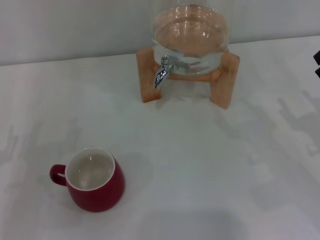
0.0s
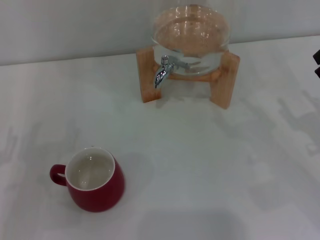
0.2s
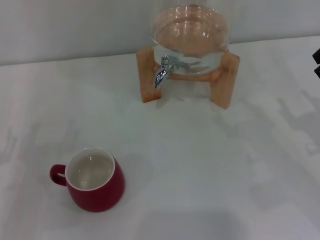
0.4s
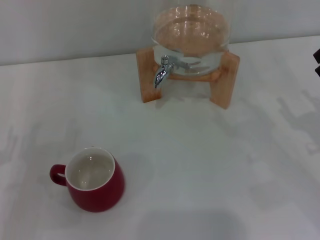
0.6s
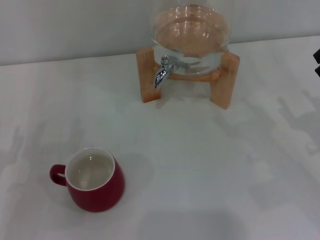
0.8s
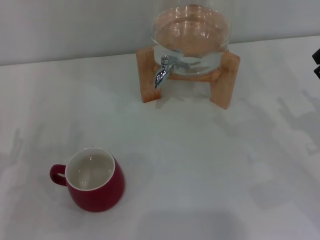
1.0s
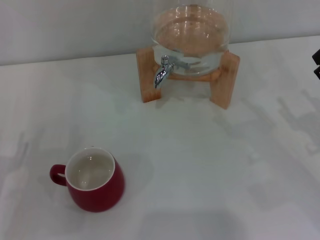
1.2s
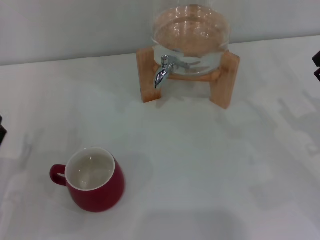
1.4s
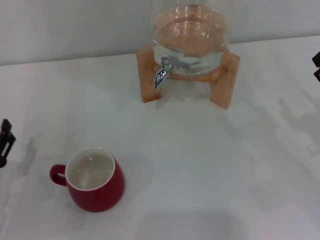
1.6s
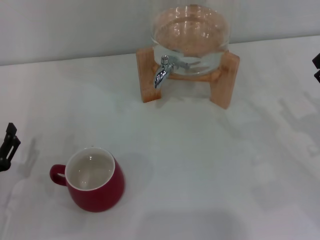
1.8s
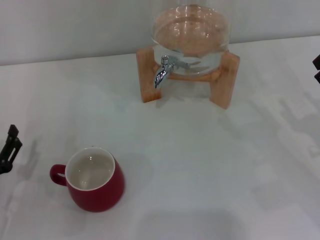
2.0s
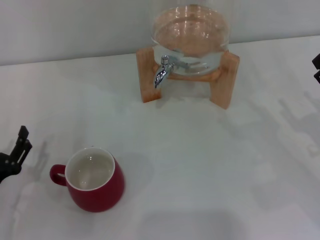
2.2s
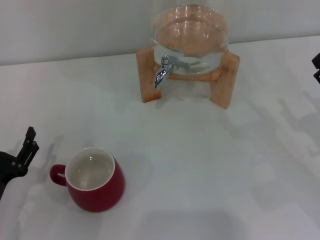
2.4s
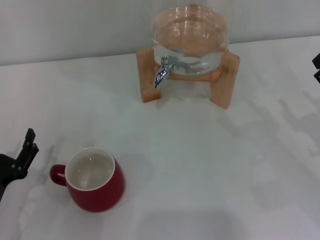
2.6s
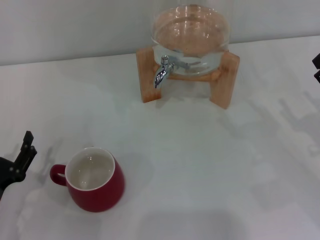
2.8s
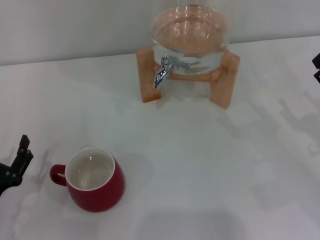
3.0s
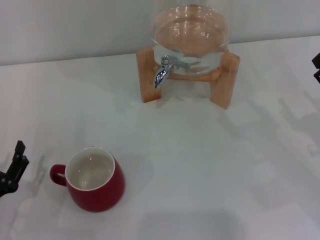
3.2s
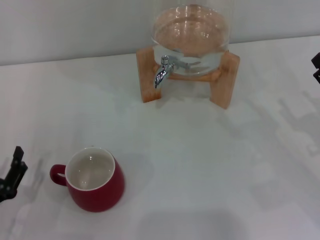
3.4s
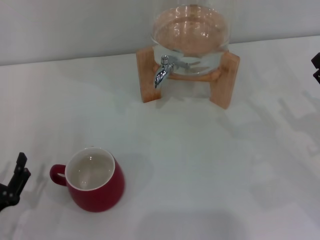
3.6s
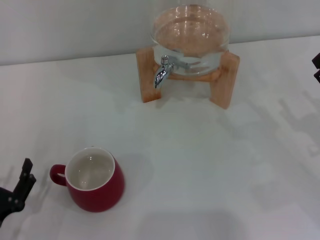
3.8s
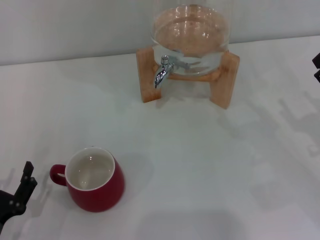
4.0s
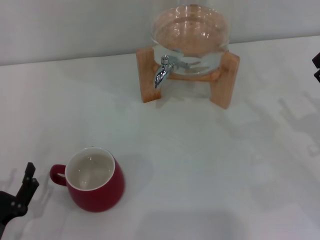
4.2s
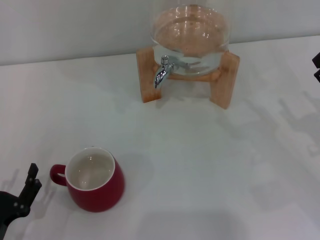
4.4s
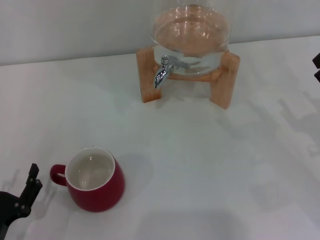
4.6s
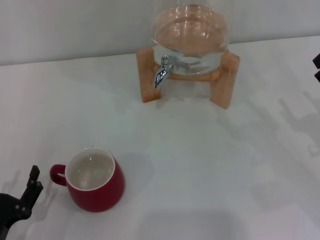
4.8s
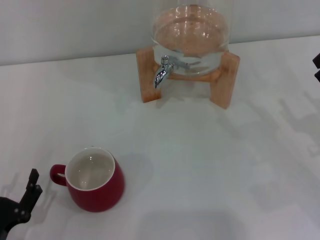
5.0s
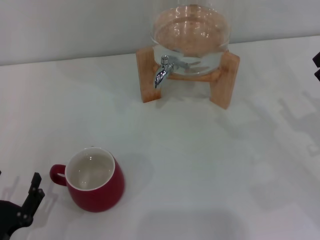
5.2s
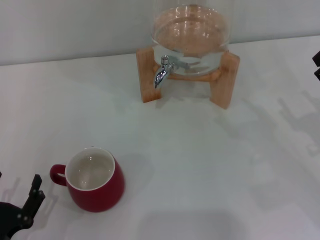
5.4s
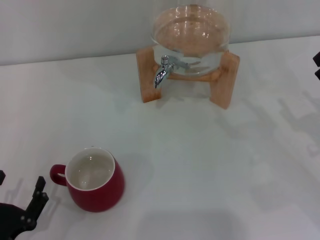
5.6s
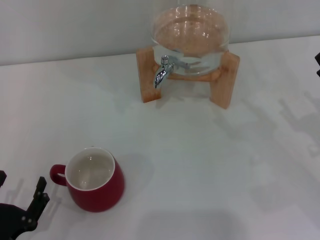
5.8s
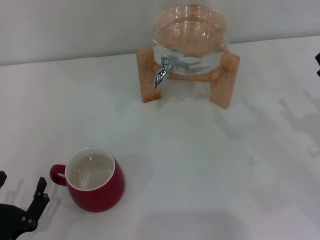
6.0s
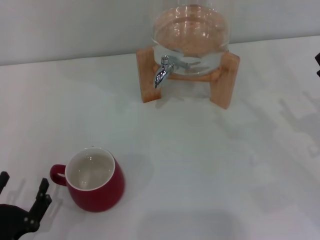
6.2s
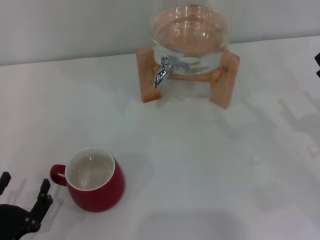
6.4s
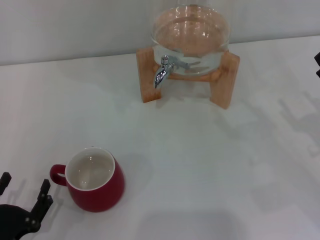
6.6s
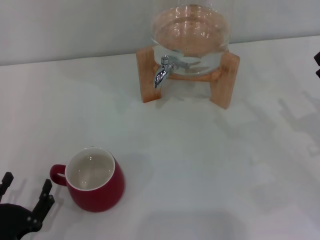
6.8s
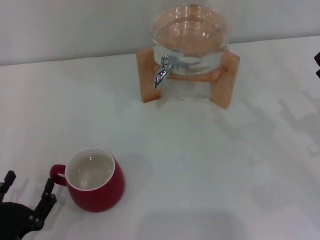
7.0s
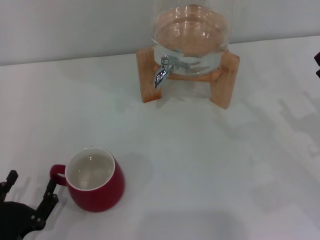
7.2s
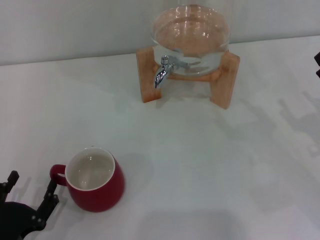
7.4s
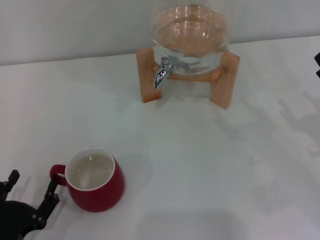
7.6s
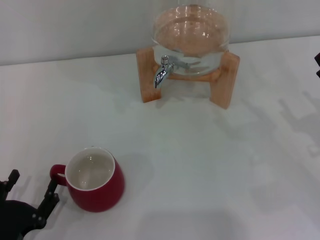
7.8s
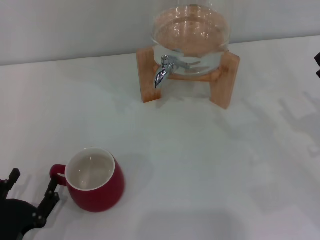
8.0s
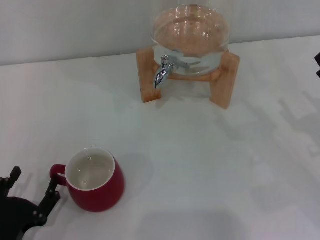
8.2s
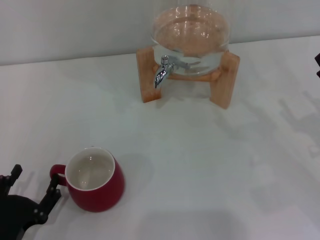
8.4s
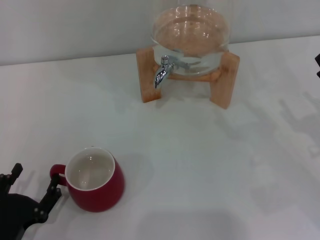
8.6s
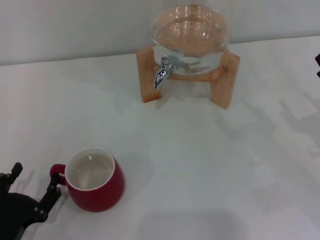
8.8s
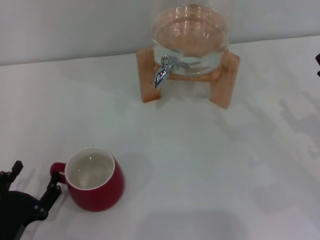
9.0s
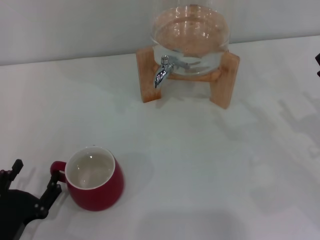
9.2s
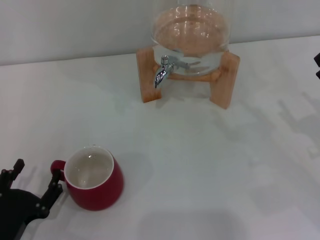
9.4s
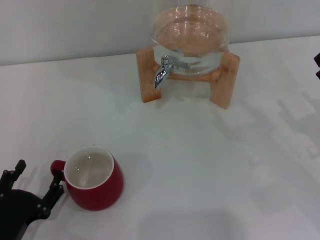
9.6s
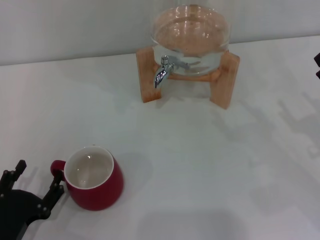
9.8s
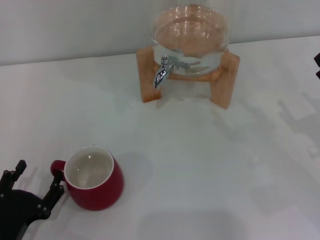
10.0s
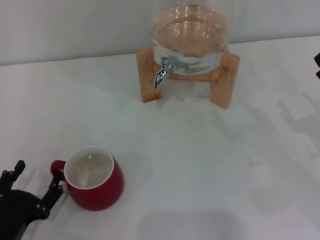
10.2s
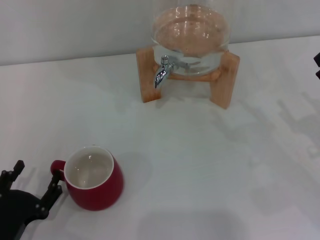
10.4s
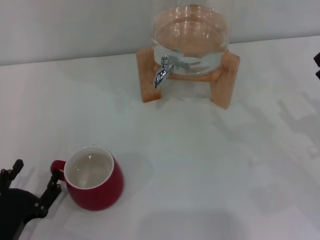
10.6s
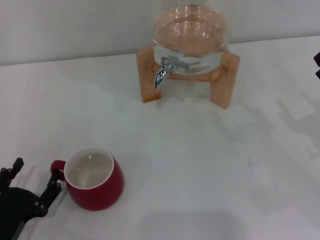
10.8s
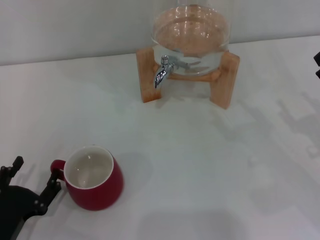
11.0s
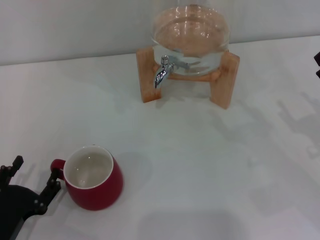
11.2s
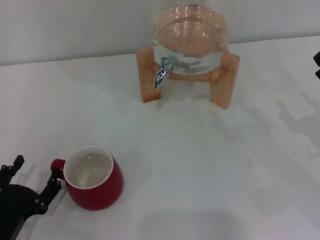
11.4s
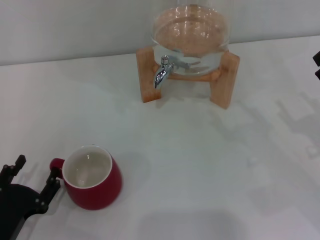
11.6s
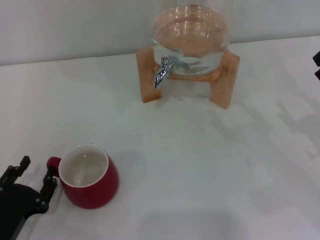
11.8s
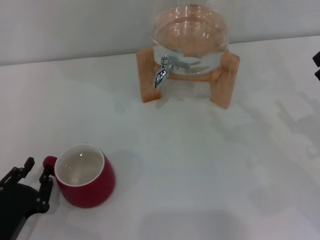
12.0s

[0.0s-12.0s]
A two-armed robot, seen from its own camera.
Task of the whole recording: the left gripper pick up the red cup and place it horizontally under the faucet, the right gripper turn on the faucet to fill the cup, and then turn off the faucet.
1.6s to 3.0s: There are only small adjustments of the grippers.
3.0s to 4.4s: The grippers stay close to where they were, moving slightly.
4.4s to 6.0s: There are only small adjustments of the grippers.
6.0s to 7.6s: Both grippers stay put.
7.6s to 9.0s: The grippers make only small movements.
9.0s to 10.4s: Neither gripper changes place.
10.4s to 12.0s: Both grippers stay about where they are.

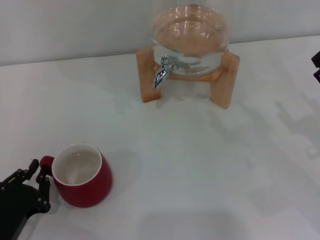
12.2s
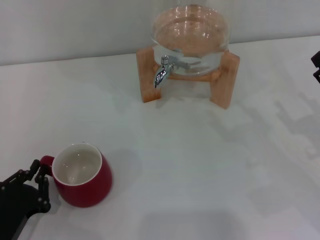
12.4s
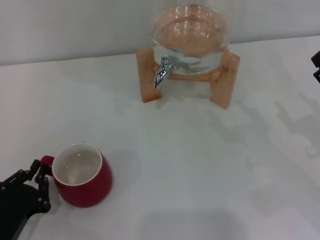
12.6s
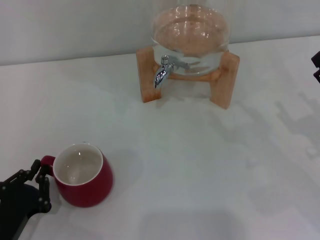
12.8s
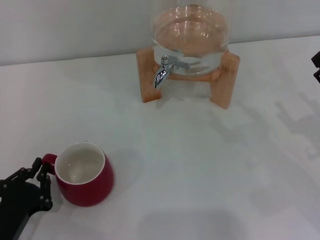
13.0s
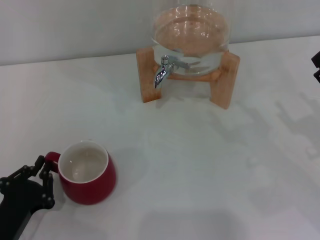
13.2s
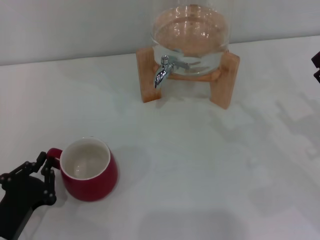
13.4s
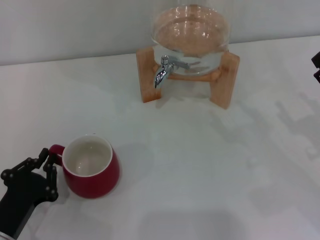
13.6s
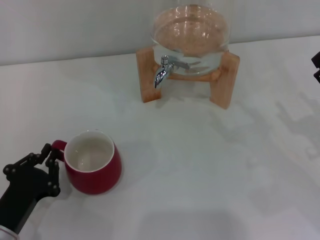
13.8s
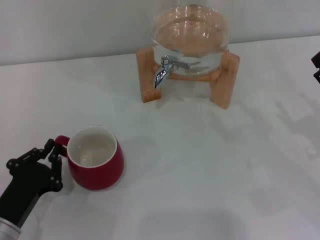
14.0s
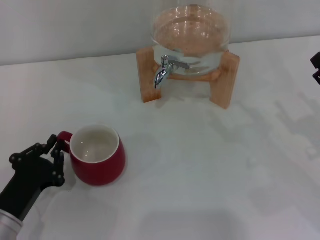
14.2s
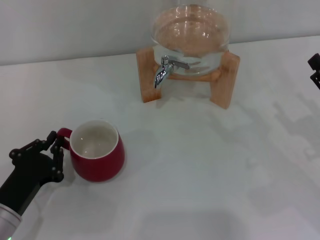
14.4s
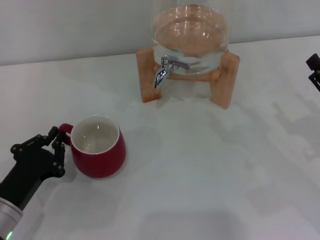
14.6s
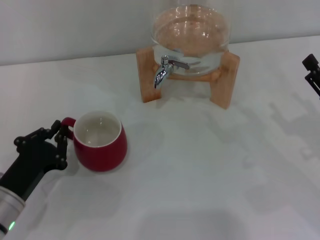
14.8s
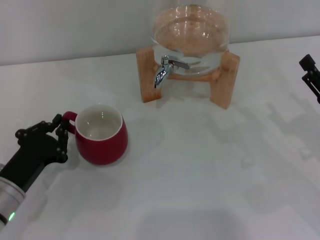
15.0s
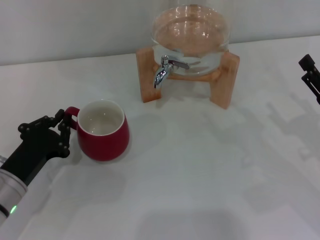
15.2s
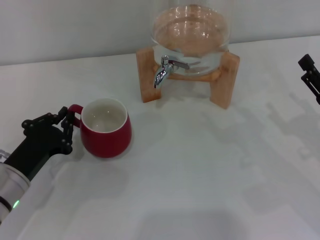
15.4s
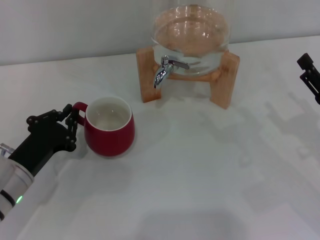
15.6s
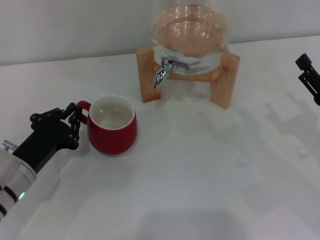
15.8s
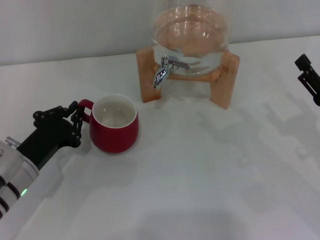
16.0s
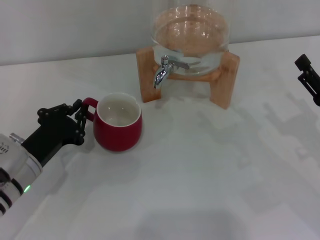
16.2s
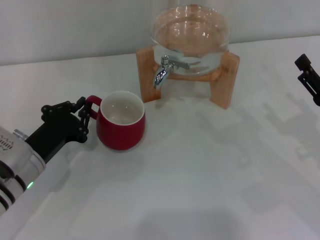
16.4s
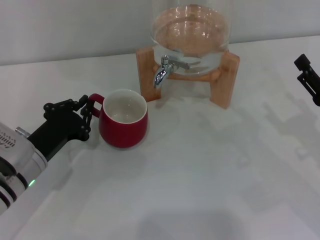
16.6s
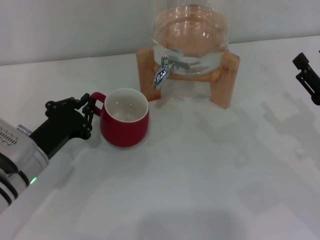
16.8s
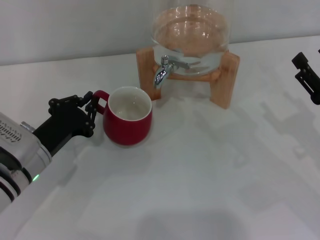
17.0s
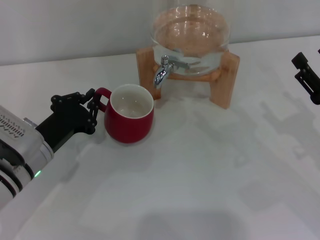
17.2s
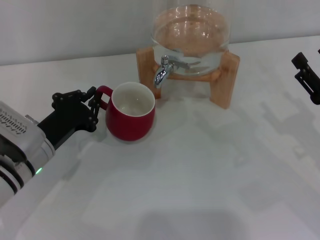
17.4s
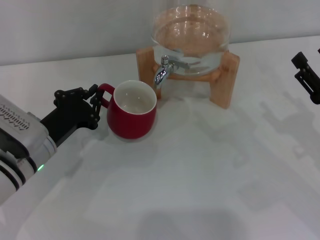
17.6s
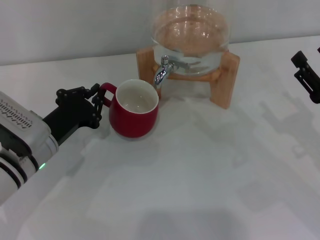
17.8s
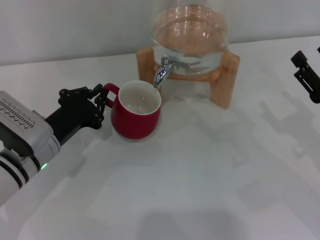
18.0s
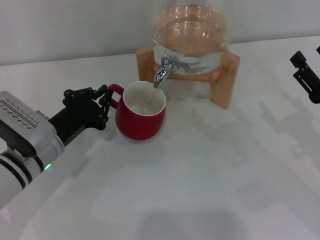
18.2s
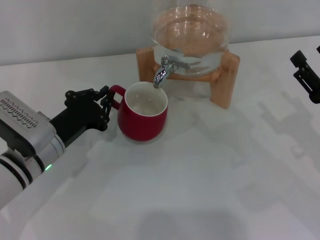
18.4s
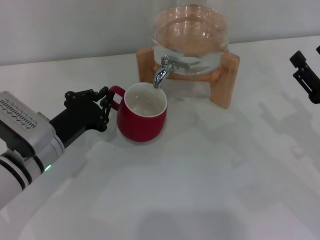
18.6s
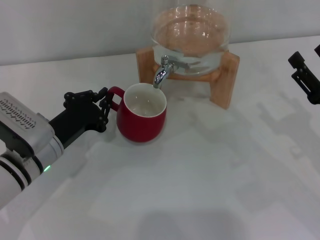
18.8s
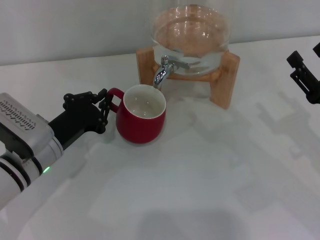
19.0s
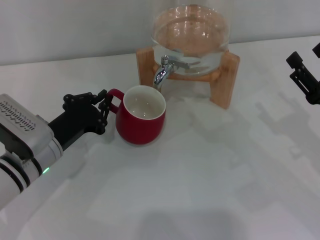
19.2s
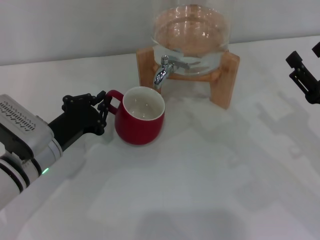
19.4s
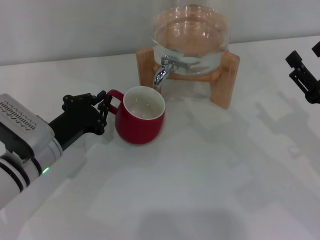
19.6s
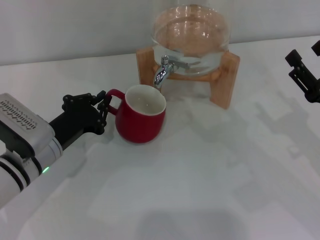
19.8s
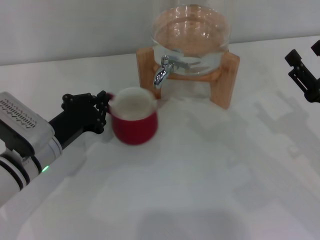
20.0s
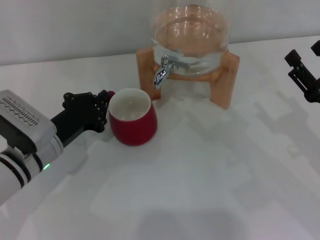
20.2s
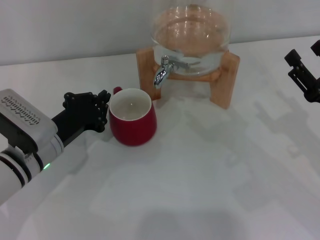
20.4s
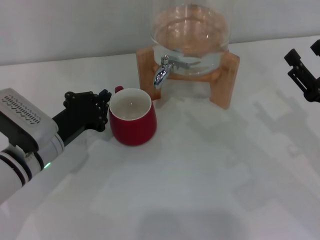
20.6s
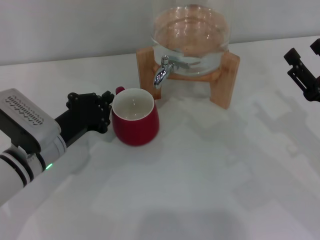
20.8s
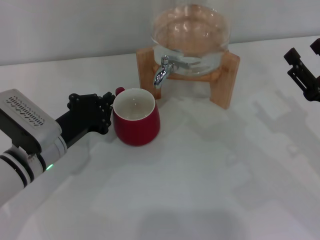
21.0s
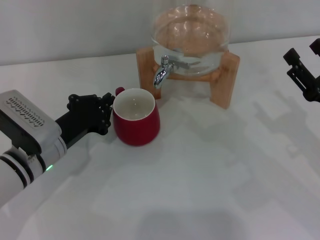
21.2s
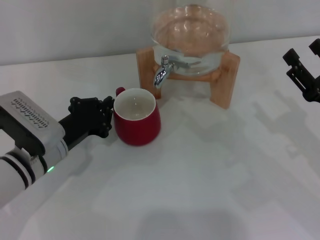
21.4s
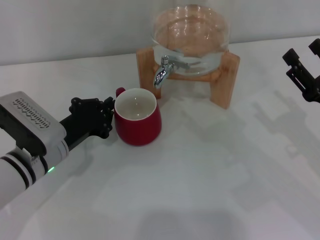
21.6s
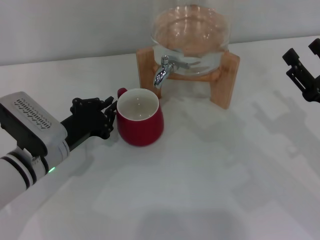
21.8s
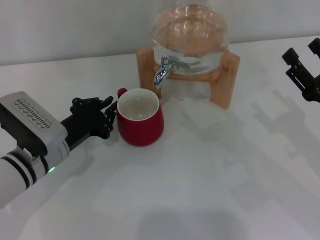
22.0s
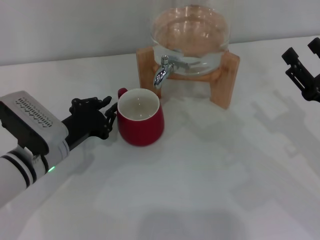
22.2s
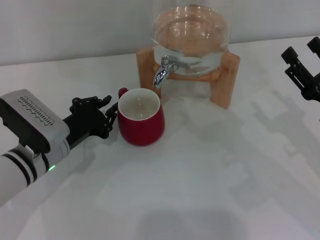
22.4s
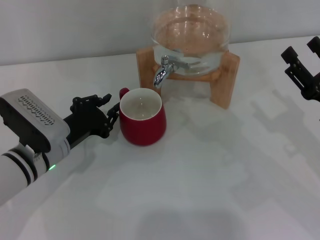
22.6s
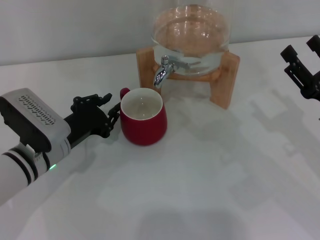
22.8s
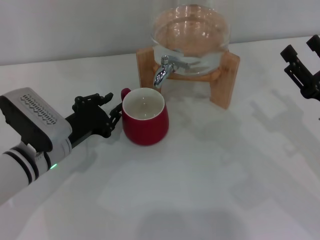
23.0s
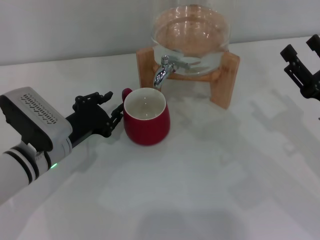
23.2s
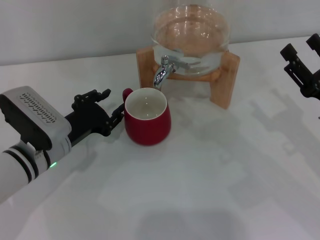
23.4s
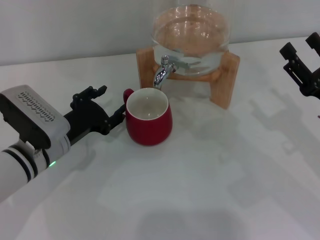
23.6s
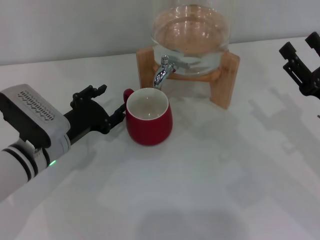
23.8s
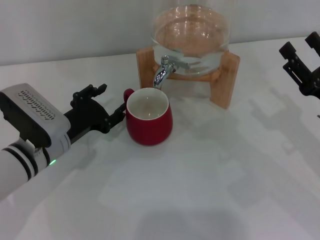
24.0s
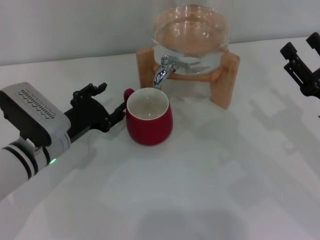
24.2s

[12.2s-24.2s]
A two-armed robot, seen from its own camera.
Task of the whole recording: the left gripper pick up the red cup and place it horizontally under the faucet, the right gripper turn on the faucet to fill the cup, and then turn off the faucet.
12.2s to 13.8s: The left gripper closes.
13.8s to 15.2s: The left gripper is displaced forward by about 5 cm.
15.2s to 16.6s: There are only small adjustments of the grippers.
16.6s to 18.2s: The grippers stay close to where they were, moving slightly.
18.2s to 21.2s: Neither gripper changes place.
21.2s to 22.6s: Neither gripper changes place.
22.6s to 24.2s: The left gripper opens up.
